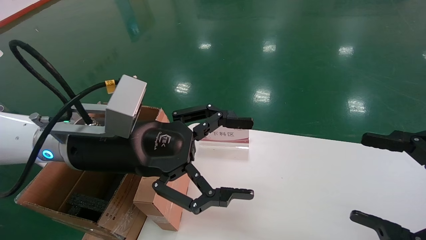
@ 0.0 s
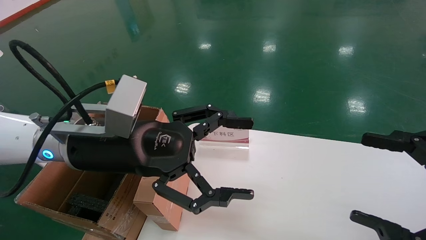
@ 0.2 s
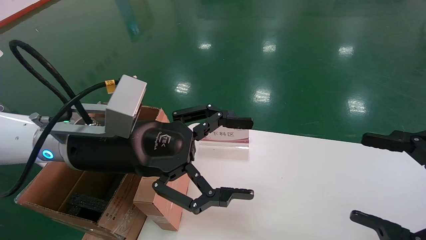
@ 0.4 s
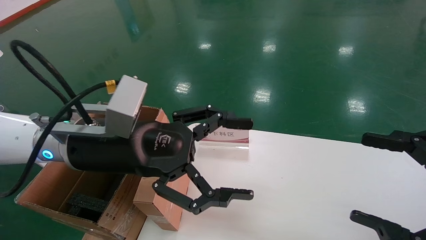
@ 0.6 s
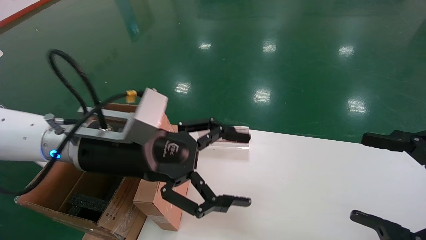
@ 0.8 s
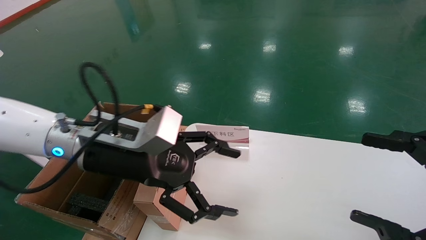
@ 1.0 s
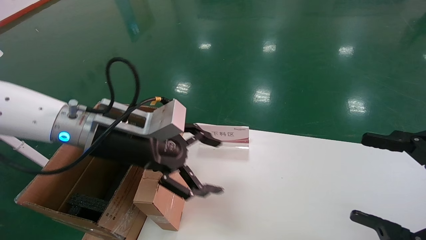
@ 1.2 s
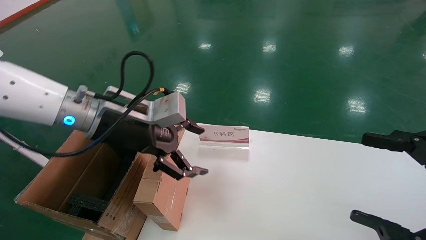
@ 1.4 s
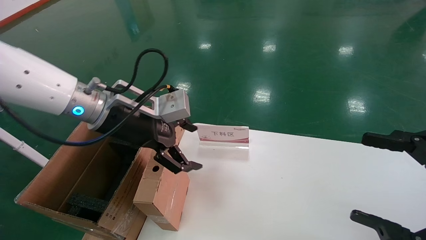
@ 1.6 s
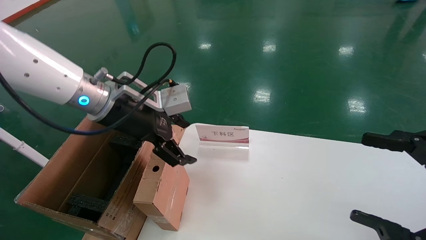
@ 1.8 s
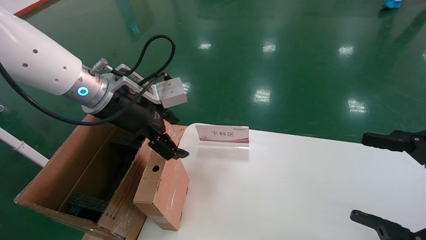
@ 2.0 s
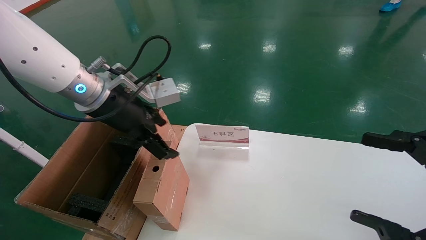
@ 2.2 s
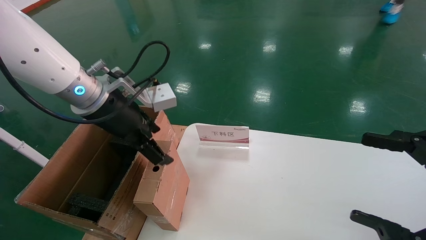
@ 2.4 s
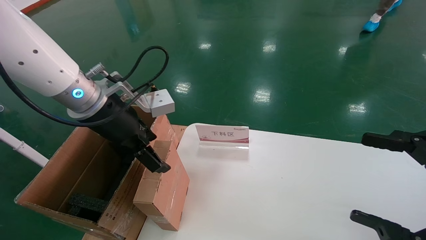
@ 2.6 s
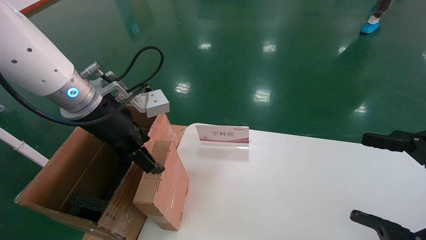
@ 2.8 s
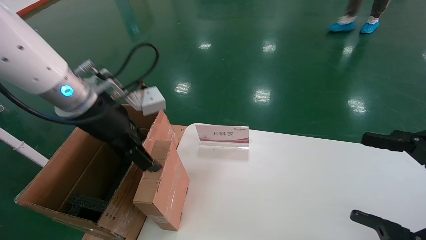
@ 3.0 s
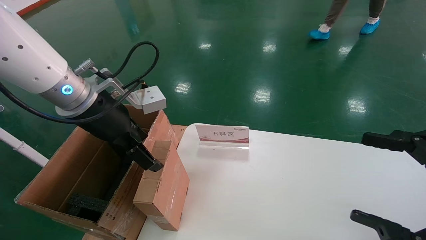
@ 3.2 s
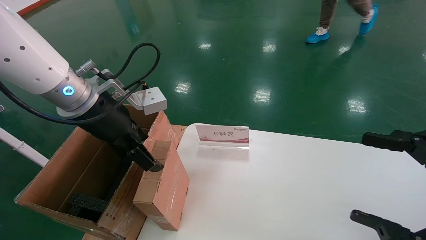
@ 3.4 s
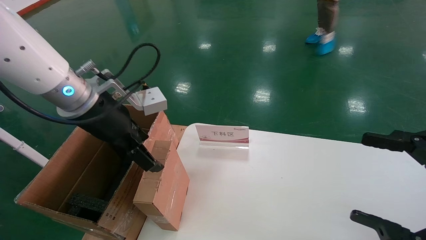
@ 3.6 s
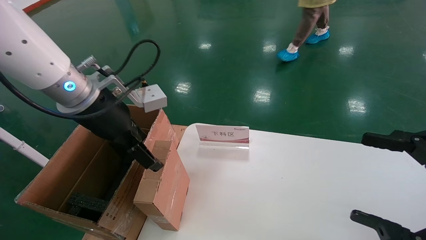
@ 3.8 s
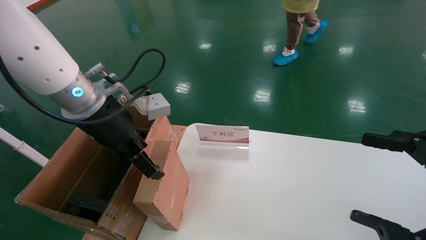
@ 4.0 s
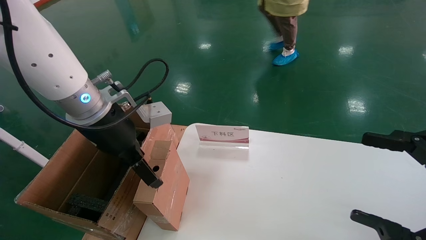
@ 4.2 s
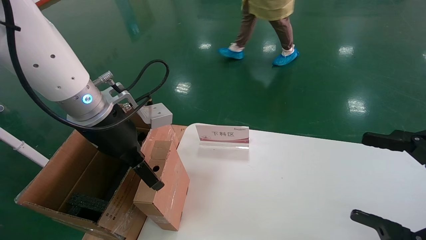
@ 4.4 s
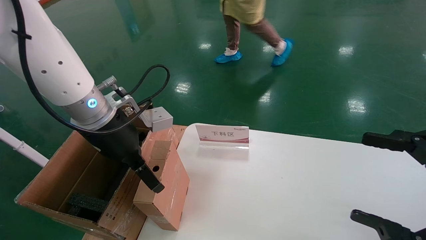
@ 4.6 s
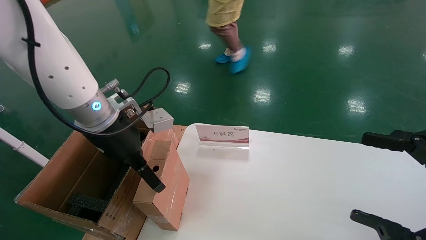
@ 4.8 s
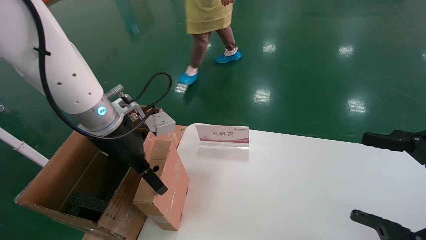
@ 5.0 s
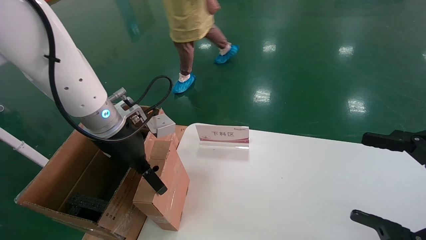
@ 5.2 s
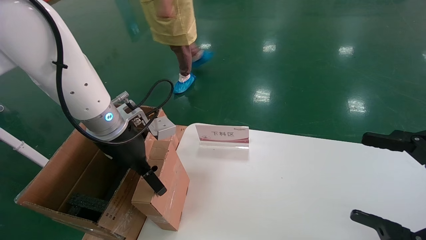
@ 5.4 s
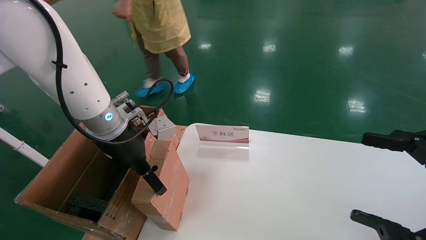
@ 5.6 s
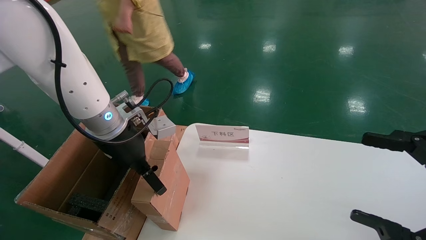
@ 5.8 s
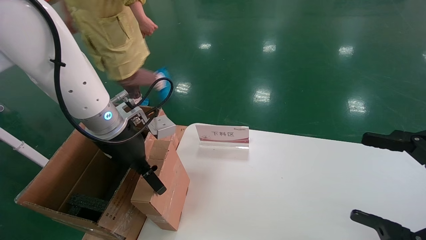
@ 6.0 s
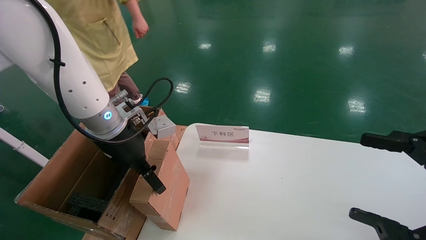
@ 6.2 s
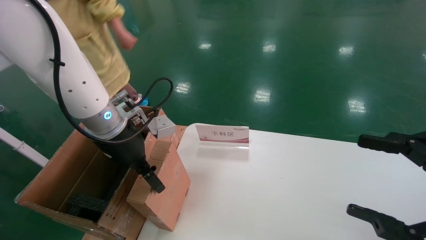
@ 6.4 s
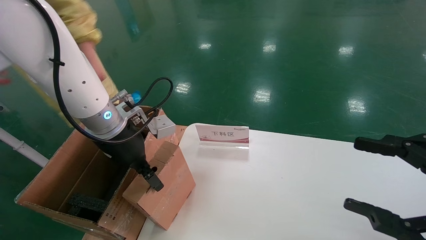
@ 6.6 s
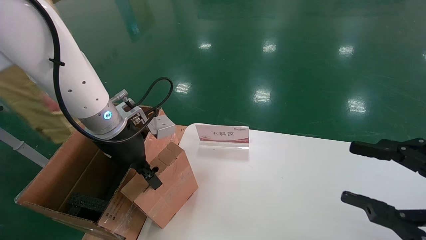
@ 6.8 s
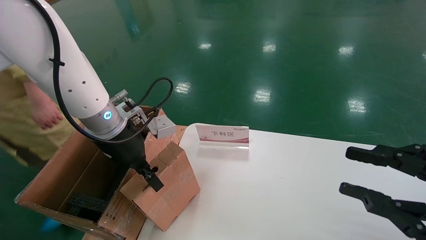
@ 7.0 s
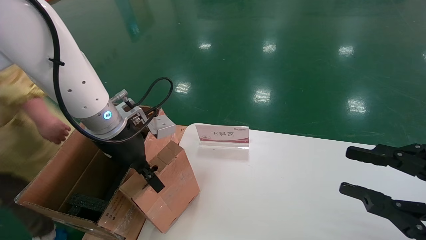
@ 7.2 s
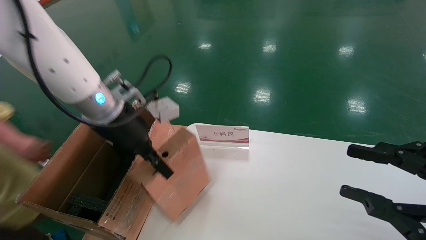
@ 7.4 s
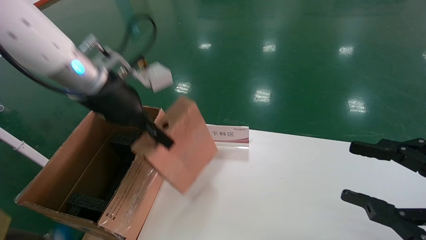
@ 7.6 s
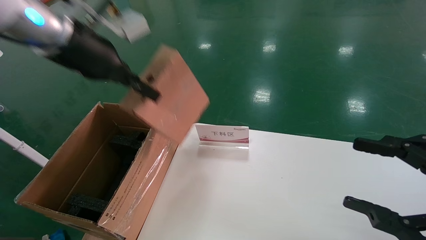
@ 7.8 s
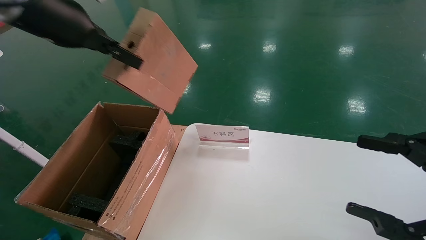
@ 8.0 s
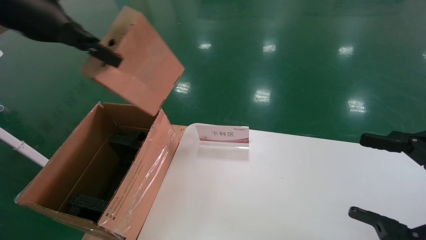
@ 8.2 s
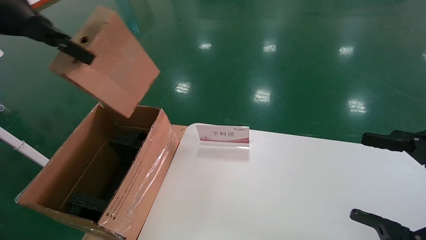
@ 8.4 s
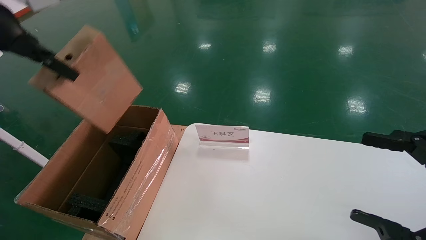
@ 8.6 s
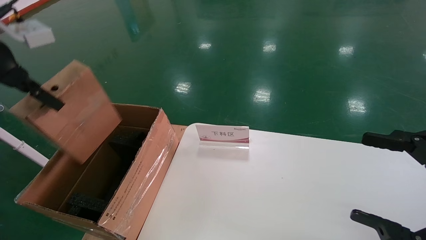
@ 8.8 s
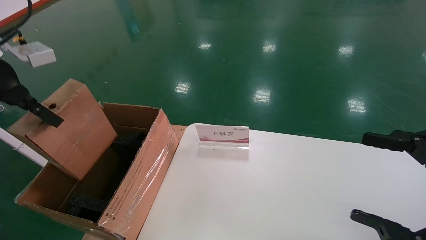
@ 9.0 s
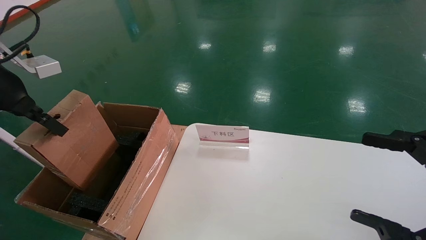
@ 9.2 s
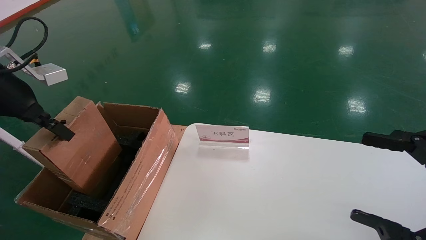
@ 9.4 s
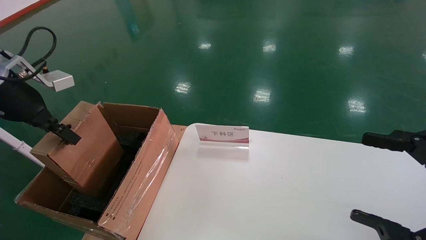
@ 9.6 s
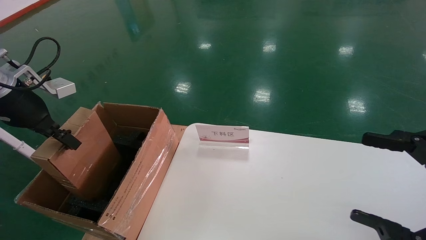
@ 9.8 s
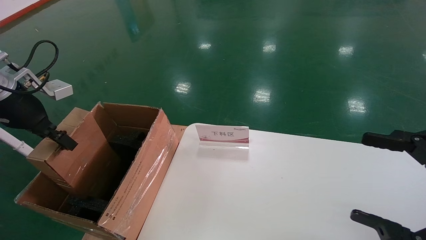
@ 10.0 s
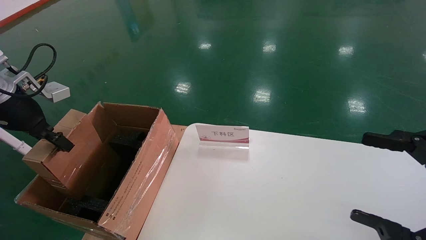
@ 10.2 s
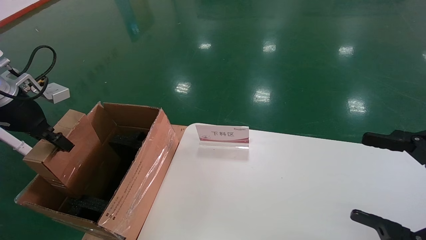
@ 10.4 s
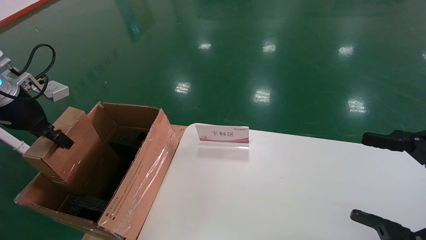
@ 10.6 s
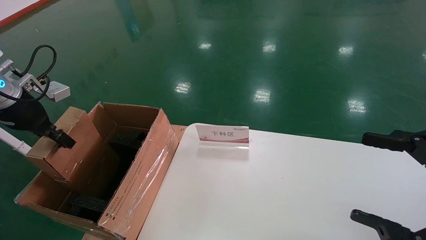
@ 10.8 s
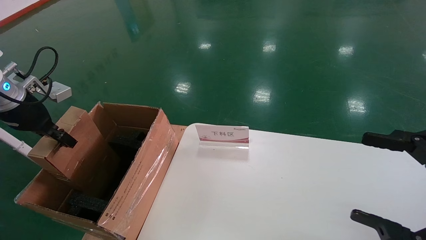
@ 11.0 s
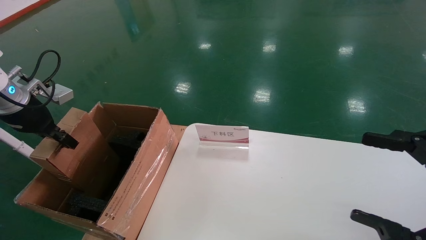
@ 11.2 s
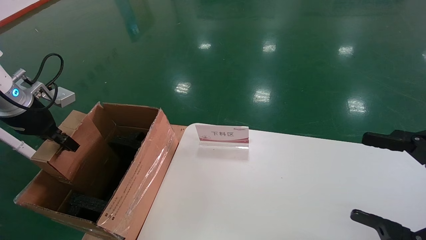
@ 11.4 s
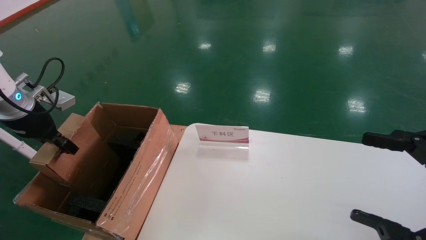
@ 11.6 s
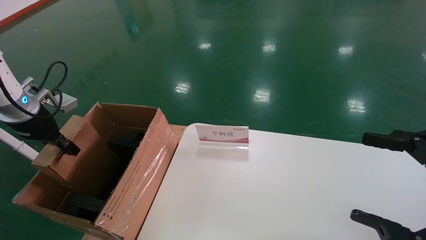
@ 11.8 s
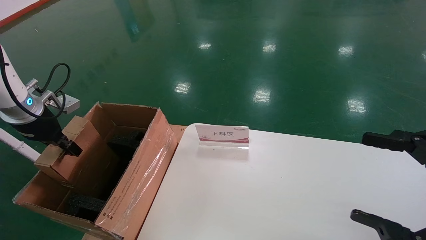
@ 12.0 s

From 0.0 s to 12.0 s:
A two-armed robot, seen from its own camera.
Task of the whole recording: pick up the small cardboard box and load it into the large cardboard box.
Step, from 1.0 s to 6.8 s: Pick up the mouse and power cord box.
From 0.0 s to 1.6 s: The left gripper moves forward, about 5 cm.
From 3.0 s to 4.4 s: The grippers make only small movements.
From 4.4 s to 6.0 s: The grippers stay close to where they were, moving slightly.
From 6.0 s to 7.6 s: The left gripper goes roughly 10 cm upward, and closes, while the right gripper closes up.
From 7.6 s to 9.0 s: The right gripper opens its fingers; the left gripper goes about 20 cm to the left.
From 9.0 s to 10.4 s: The left gripper travels downward by roughly 10 cm.
From 10.4 s to 12.0 s: The left gripper heads downward, covering approximately 5 cm.

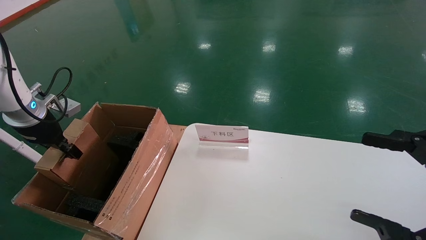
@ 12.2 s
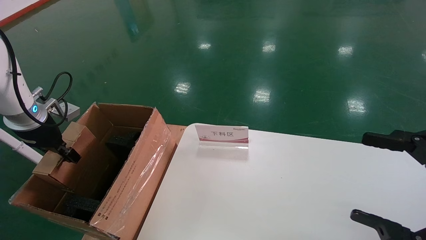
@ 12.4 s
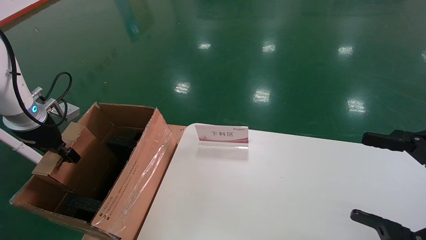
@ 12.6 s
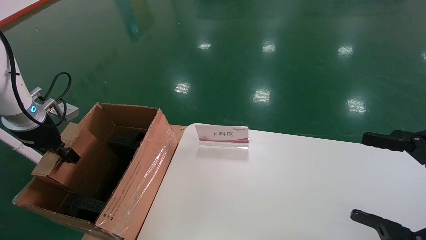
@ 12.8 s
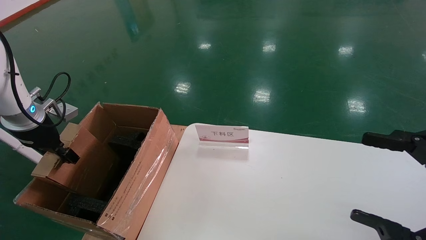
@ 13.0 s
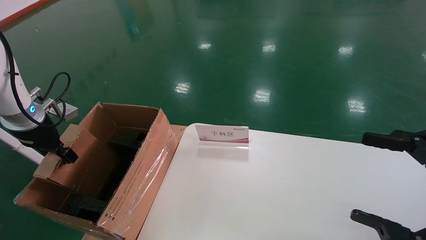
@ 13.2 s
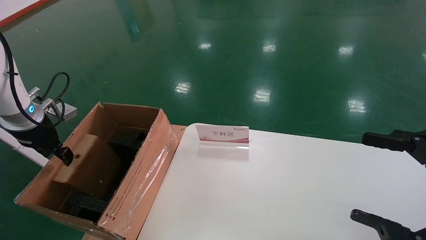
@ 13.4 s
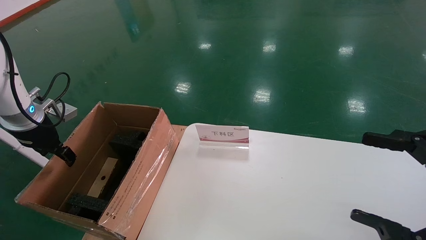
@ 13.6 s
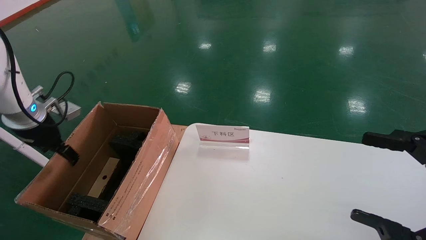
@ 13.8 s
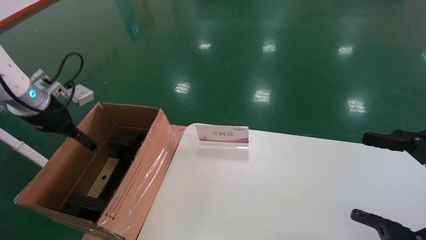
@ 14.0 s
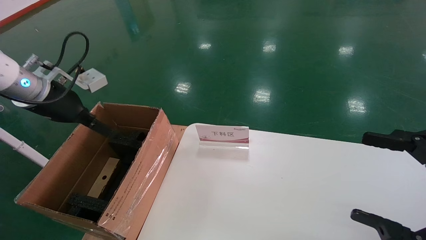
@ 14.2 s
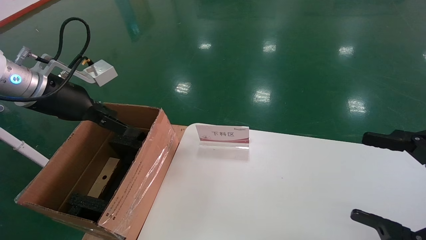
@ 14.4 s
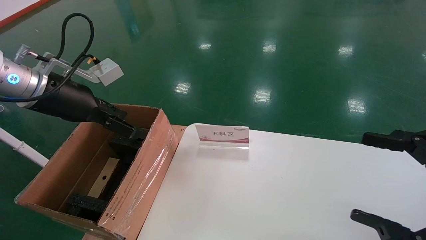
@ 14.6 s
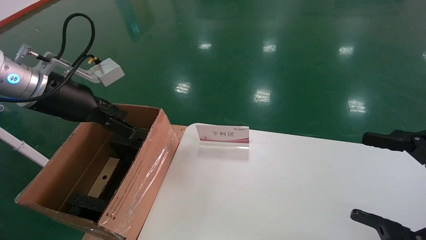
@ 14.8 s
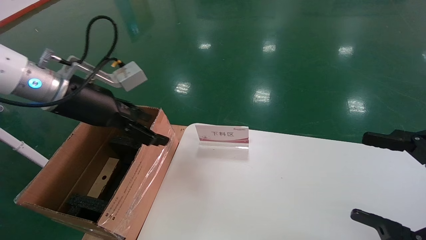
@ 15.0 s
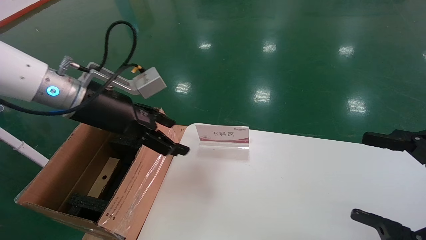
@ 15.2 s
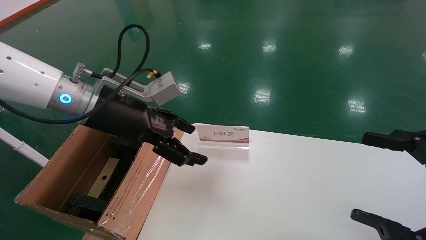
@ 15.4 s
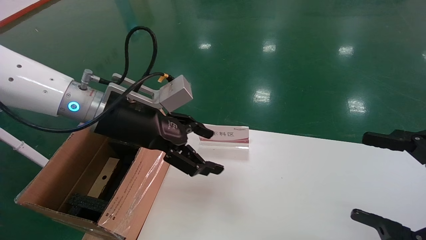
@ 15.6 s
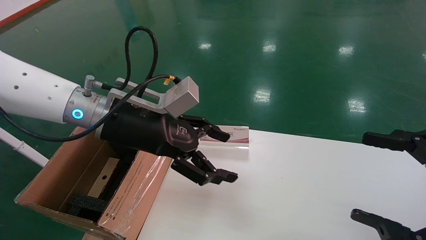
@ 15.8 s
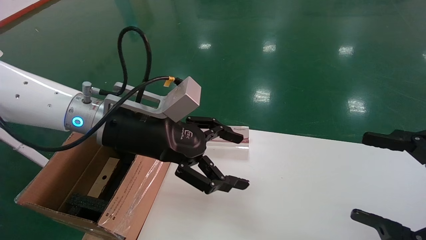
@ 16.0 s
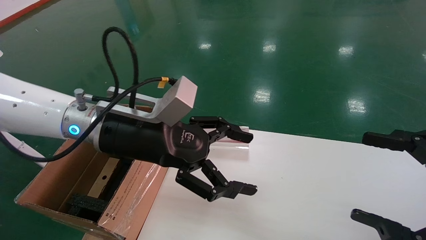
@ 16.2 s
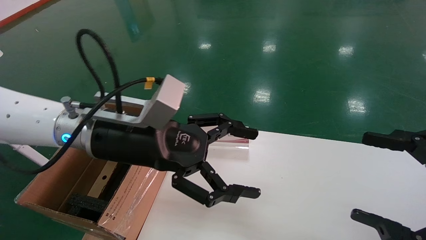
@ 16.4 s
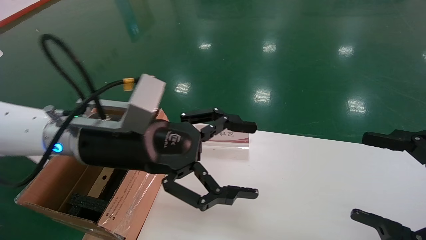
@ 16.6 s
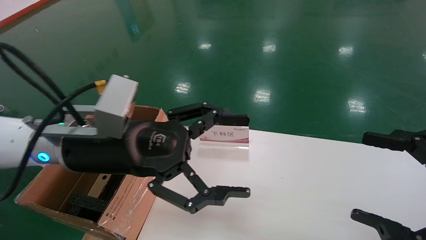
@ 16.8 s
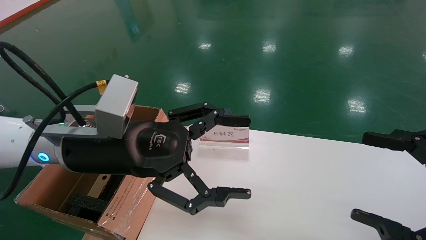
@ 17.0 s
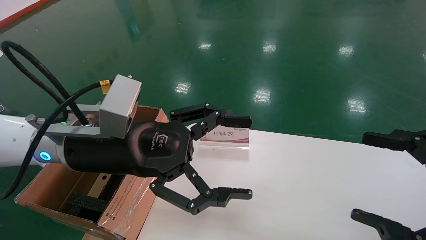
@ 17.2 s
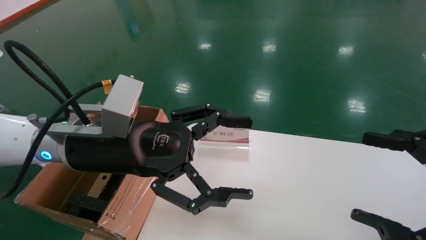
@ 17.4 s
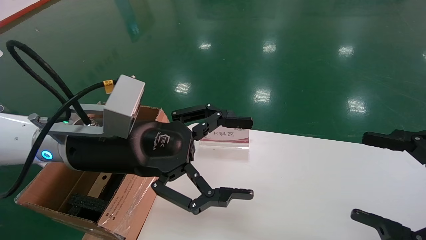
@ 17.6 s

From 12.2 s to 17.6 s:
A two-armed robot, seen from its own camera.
Task of the whole recording: pick up the small cardboard box and load it into the large cardboard box.
From 12.2 s to 13.6 s: The left gripper opens.
From 13.6 s to 15.0 s: The left gripper is displaced to the right and upward by about 20 cm, and opens up.
From 15.0 s to 16.2 s: The left gripper travels to the right by approximately 10 cm.
